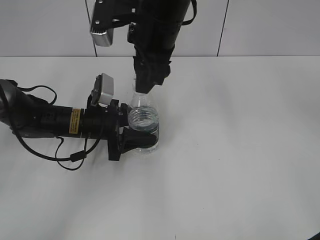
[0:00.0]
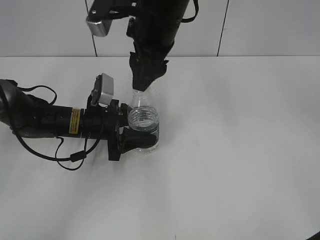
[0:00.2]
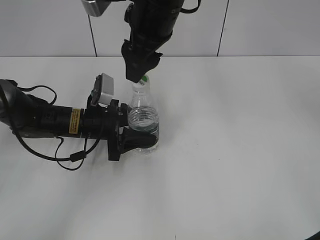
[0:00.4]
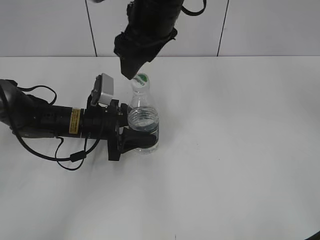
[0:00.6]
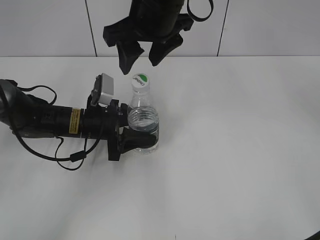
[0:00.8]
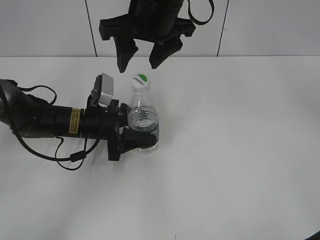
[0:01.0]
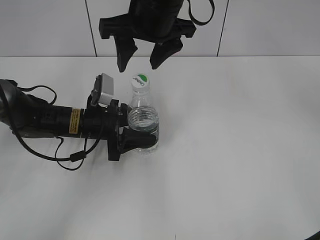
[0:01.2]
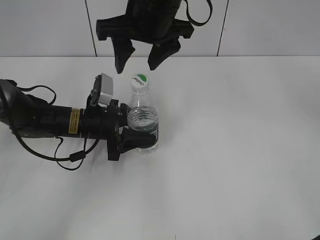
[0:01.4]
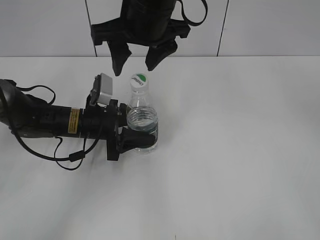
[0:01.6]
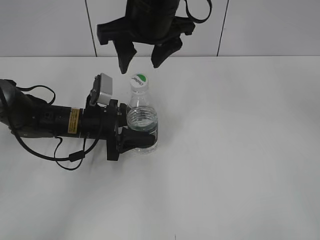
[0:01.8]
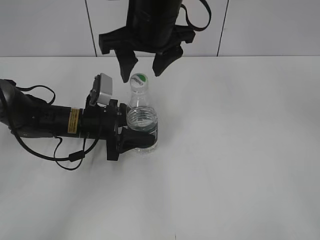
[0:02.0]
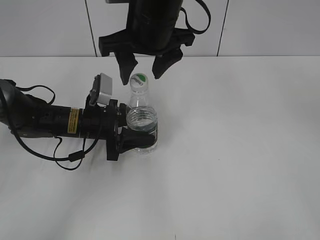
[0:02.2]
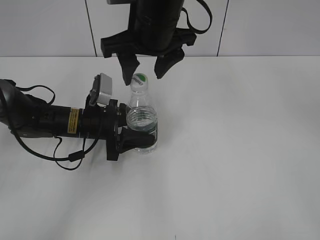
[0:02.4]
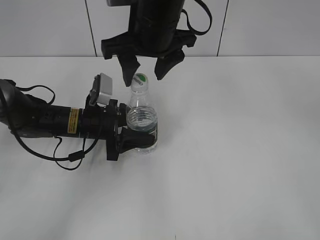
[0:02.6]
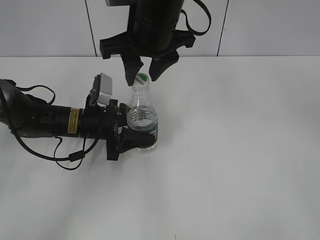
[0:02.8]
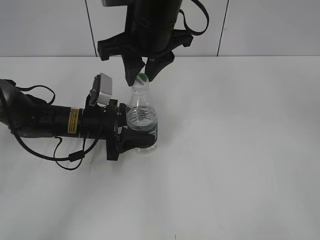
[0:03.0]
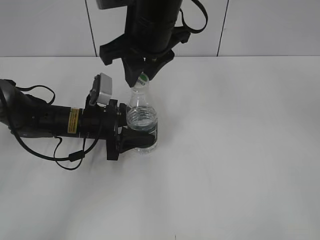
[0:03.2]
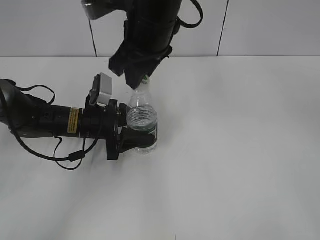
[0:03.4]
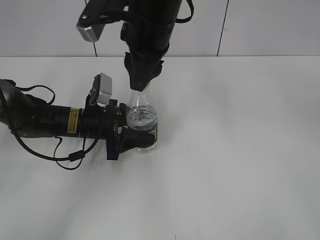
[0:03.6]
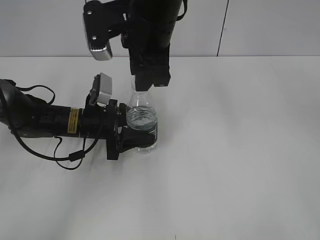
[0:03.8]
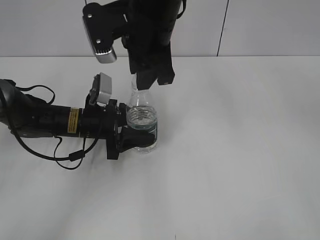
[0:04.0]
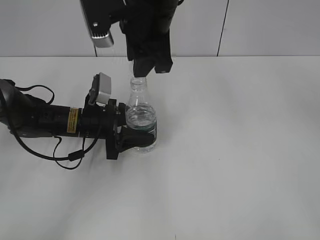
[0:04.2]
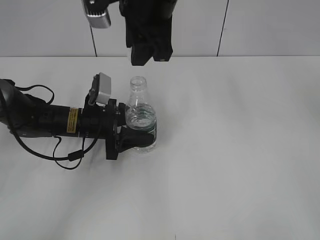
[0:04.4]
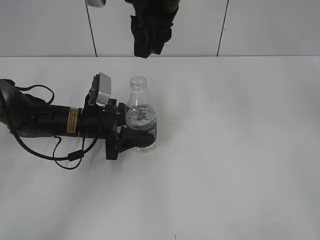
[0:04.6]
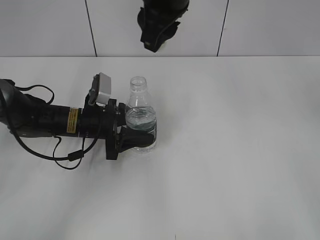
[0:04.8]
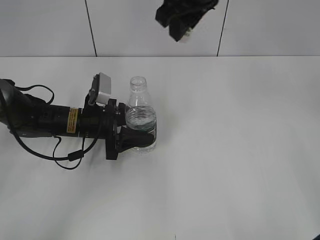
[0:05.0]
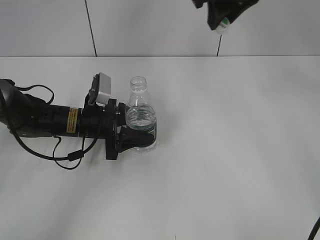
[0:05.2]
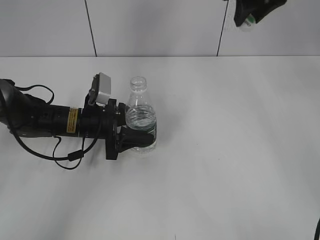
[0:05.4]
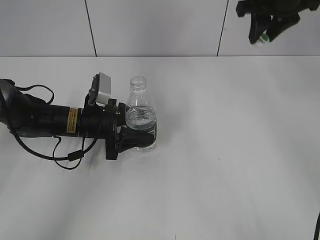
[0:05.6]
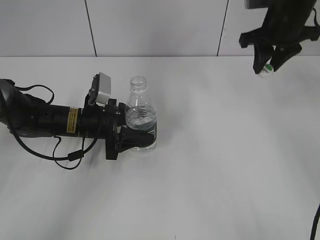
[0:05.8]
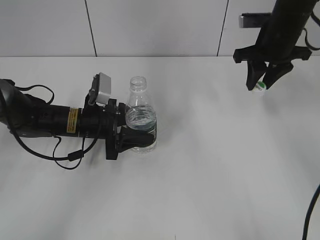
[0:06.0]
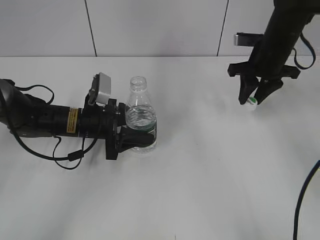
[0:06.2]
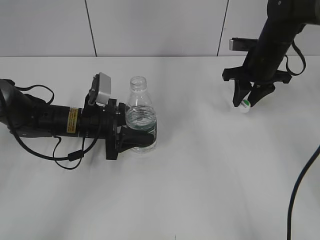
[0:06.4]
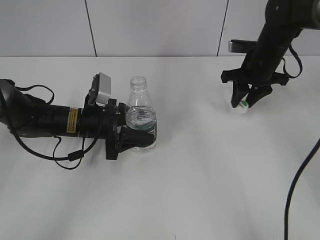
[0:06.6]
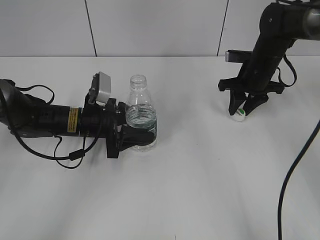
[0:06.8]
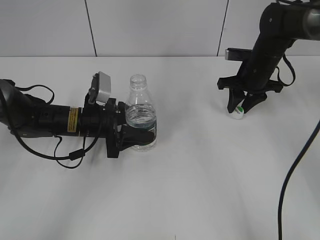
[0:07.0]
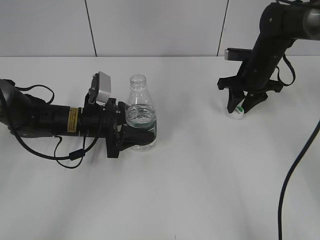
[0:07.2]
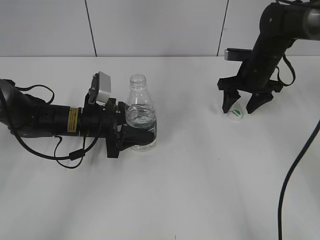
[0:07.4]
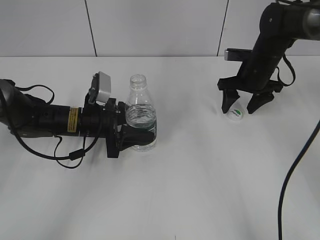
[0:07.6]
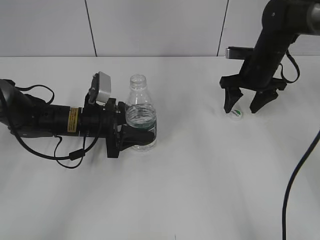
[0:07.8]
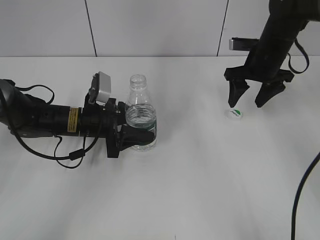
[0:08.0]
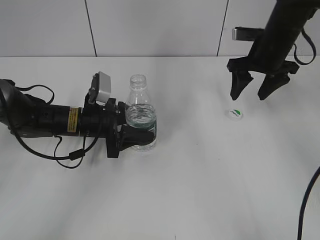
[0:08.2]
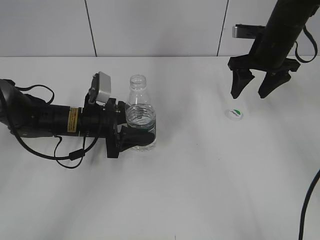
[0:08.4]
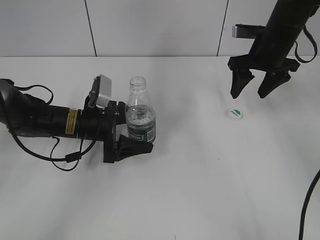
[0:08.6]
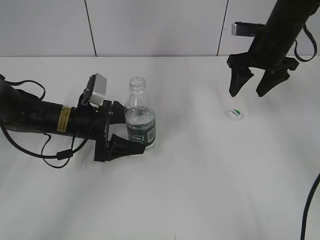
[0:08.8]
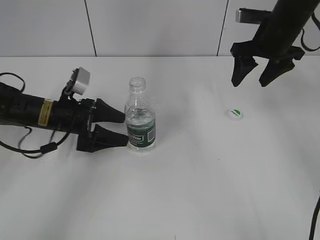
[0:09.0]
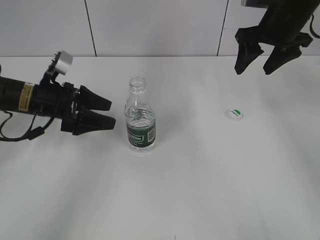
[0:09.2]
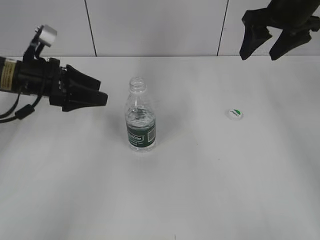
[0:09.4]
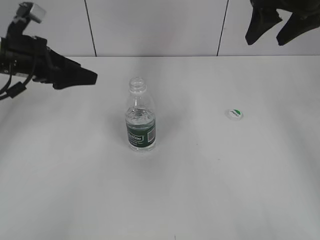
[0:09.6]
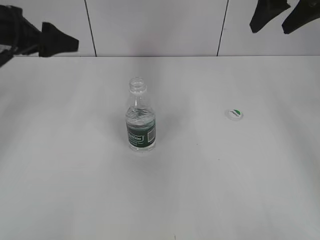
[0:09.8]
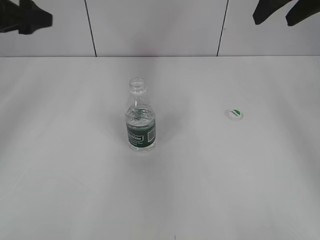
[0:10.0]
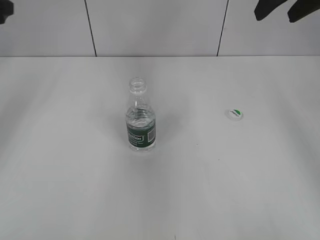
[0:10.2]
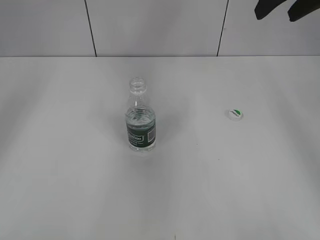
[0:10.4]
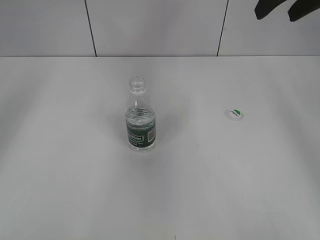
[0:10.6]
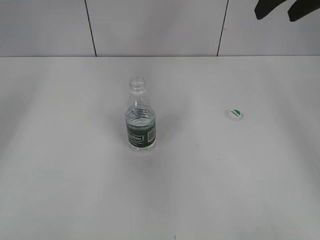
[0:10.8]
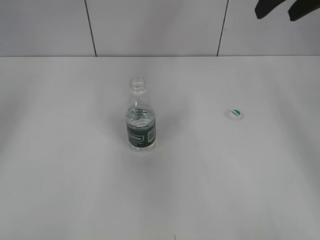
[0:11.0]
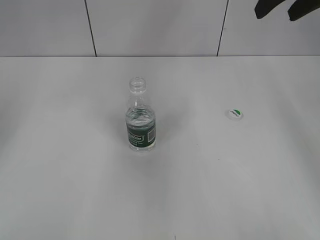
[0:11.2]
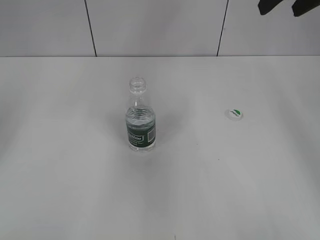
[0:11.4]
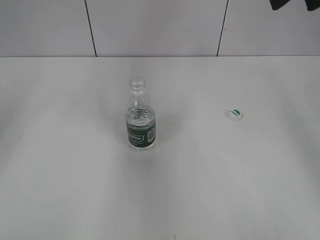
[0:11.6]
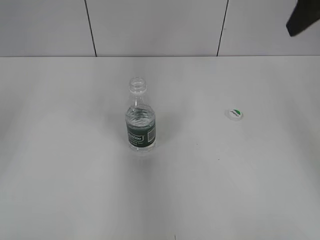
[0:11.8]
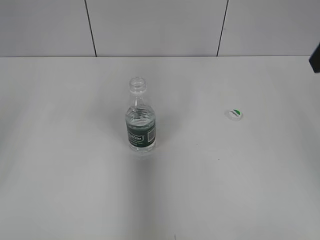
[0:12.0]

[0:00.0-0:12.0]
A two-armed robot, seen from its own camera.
Step, 0:00.0 to 0:04.2: Unscrew the bottle cap with the right gripper while holding the bottle with the left gripper.
Step, 0:04.4 to 0:08.0: Place the bottle cap on the table with the right gripper.
Step, 0:08.4 to 0:09.0: Place the bottle on the table with the left gripper.
0:00.0 to 0:01.6: The right gripper opens.
0:01.6 to 0:03.0: The right gripper closes its fingers.
0:04.4 to 0:06.0: The right gripper heads to the right, forward and downward, covering about 25 cm.
0:06.0 to 0:07.6: The right gripper travels downward by some 10 cm, and opens.
0:07.6 to 0:09.0: The right gripper shifts some 10 cm upward, while the left gripper opens up.
0:09.0 to 0:10.4: The left gripper shifts some 25 cm upward and to the left; the right gripper shifts approximately 15 cm upward and backward.
0:10.4 to 0:12.0: The right gripper shifts about 10 cm backward.

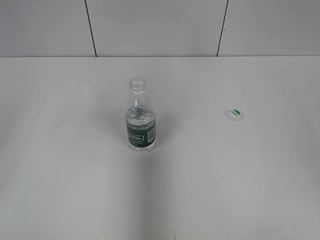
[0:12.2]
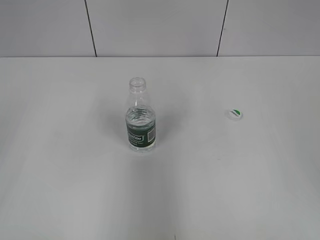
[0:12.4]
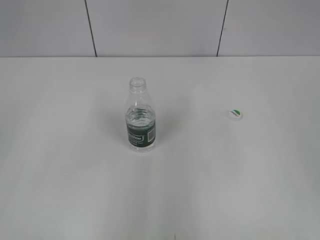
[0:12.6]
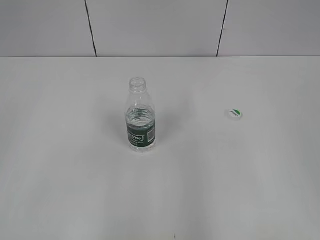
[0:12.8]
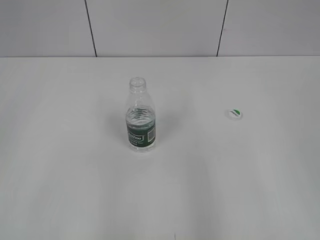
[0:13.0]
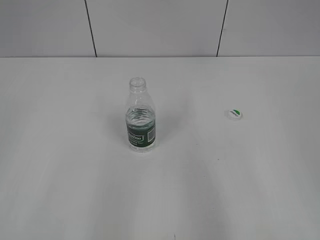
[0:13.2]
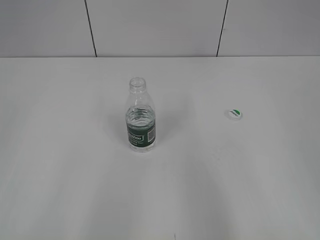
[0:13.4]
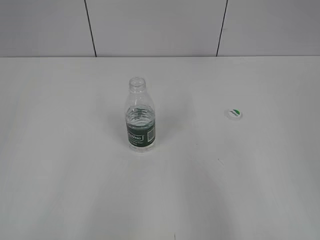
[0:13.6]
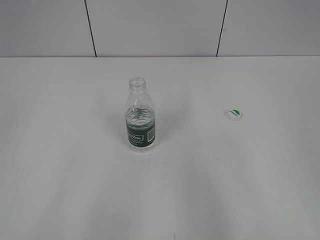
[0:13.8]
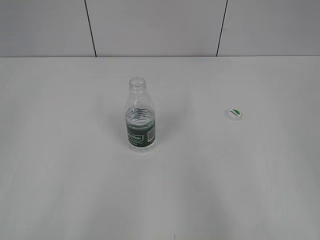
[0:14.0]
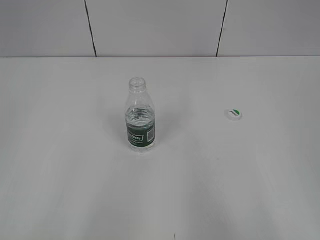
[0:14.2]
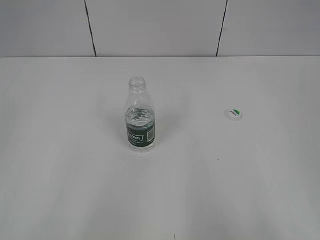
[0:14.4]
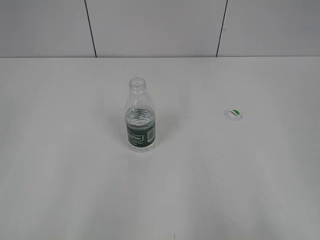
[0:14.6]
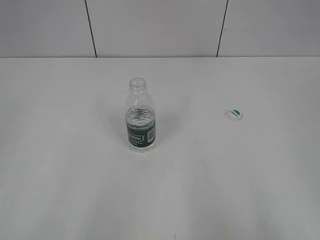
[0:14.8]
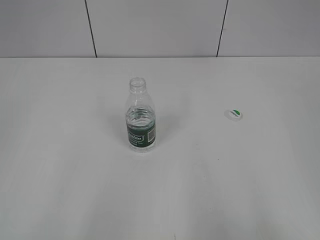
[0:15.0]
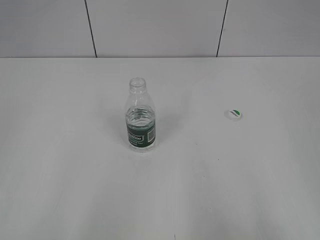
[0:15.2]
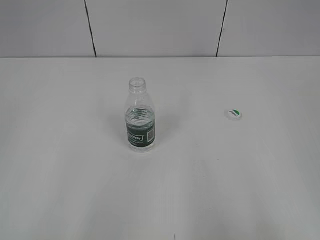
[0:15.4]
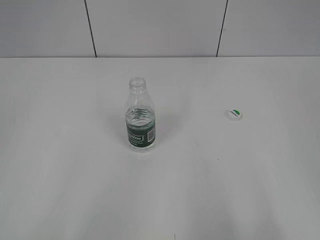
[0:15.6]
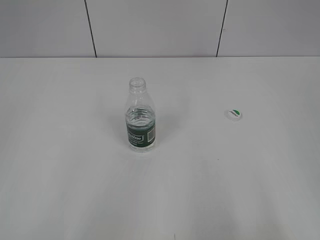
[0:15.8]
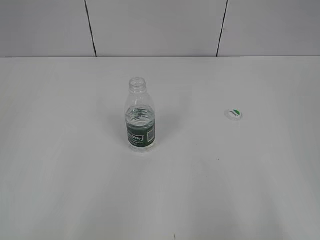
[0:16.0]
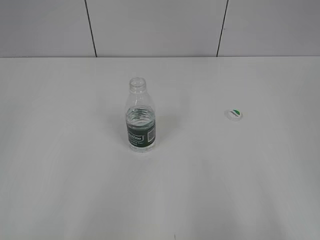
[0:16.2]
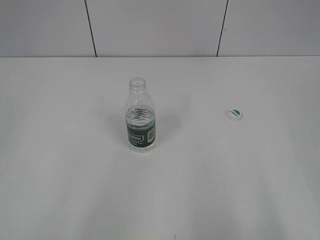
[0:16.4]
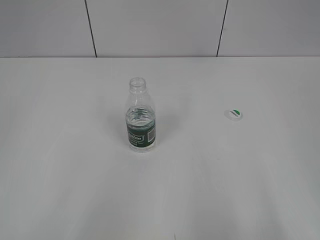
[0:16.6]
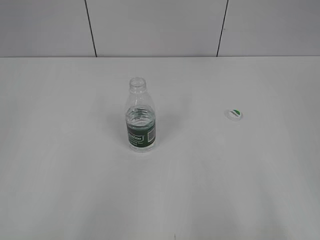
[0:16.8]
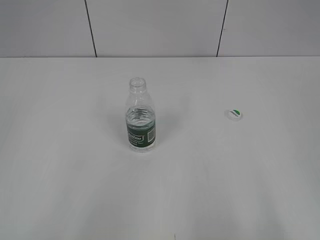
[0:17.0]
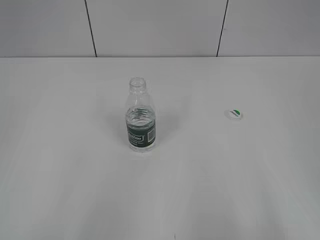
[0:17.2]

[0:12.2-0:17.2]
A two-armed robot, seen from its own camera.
0:12.2 to 0:13.8: The left gripper is displaced backward by about 20 cm. The right gripper is displaced backward and downward by approximately 15 cm.

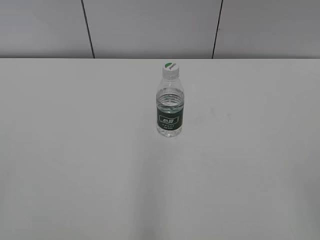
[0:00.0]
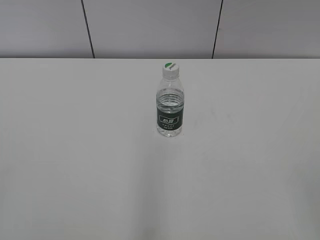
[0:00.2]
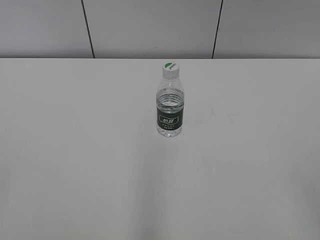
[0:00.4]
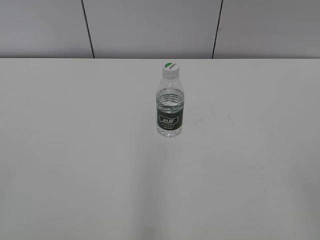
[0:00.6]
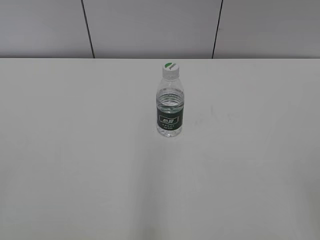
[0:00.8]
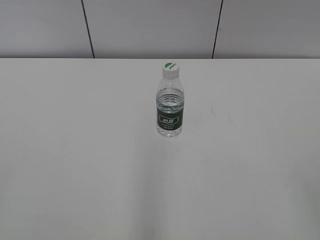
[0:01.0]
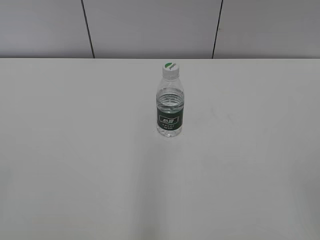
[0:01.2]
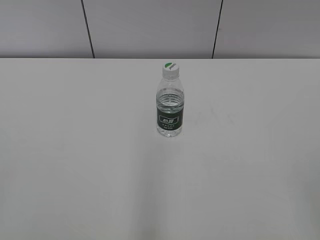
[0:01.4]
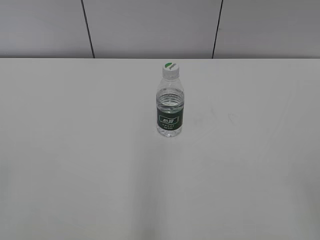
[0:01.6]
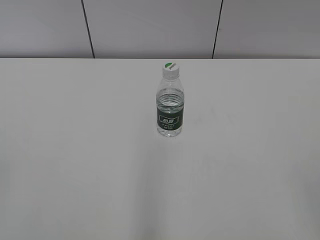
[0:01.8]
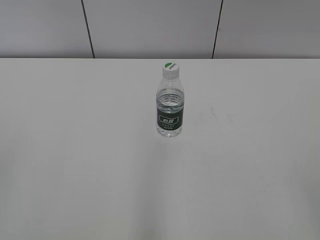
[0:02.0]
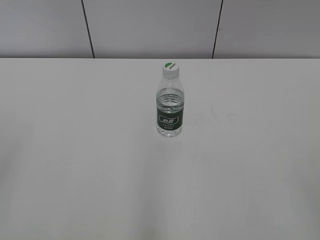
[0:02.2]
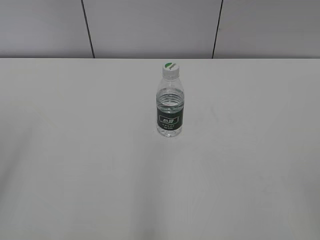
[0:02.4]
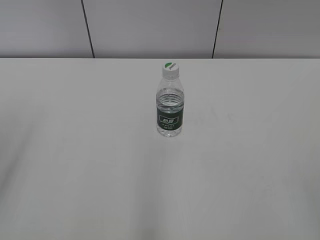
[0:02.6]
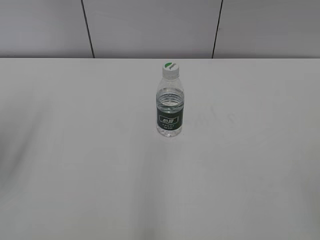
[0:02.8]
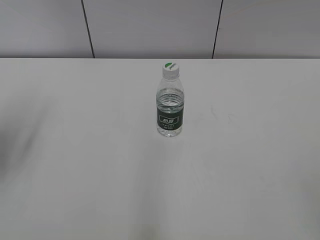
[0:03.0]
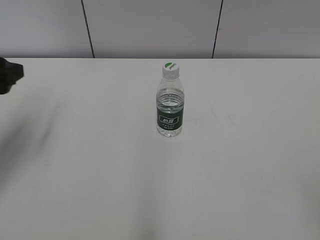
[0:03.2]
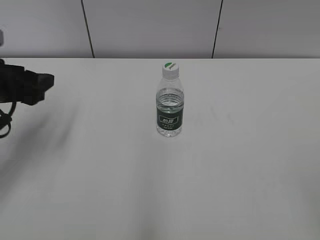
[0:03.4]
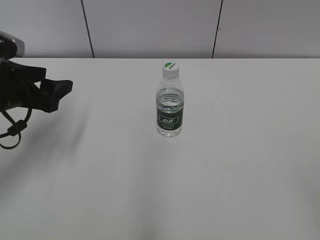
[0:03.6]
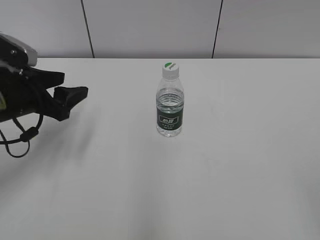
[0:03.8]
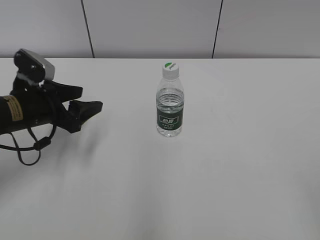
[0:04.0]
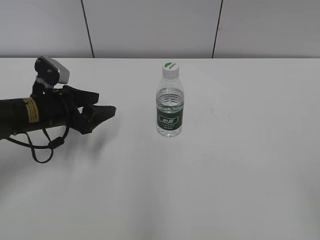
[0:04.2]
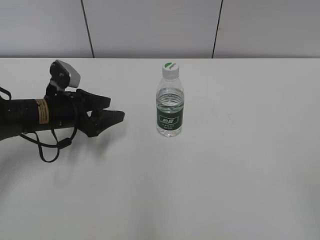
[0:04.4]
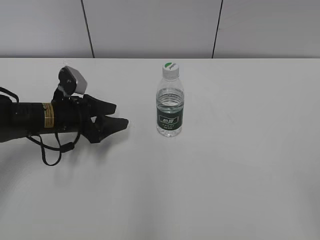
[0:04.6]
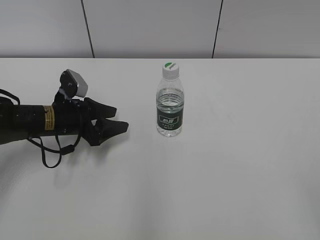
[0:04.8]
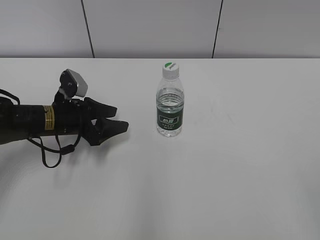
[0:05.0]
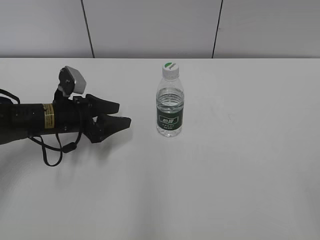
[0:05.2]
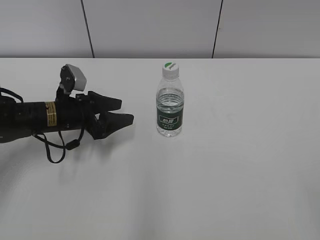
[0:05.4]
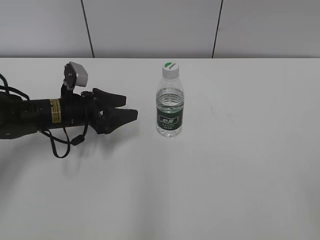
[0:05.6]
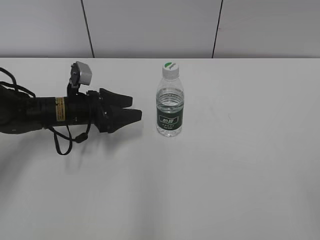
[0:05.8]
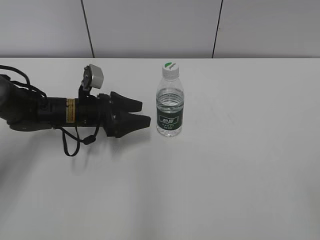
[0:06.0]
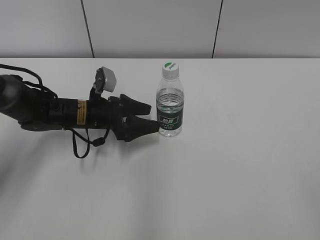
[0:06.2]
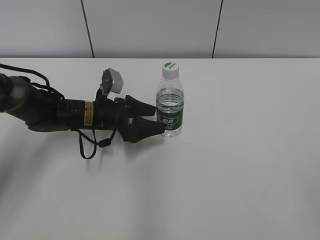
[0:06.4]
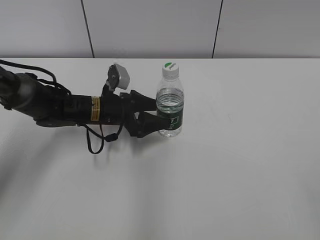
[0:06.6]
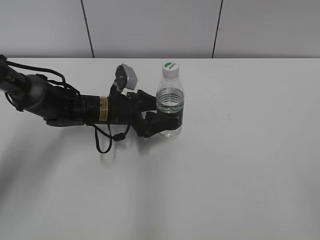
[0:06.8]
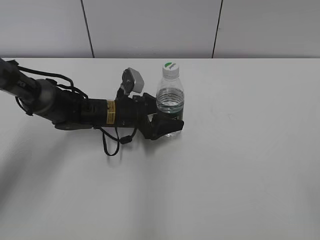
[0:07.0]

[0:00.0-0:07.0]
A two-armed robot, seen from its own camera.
0:02.8 to 0:04.2: The left gripper is displaced downward, forward and to the right by approximately 25 cm.
0:04.2 to 0:05.6: The left gripper shifts by roughly 5 cm.
0:05.6 to 0:07.0: The left gripper moves to the right, about 10 cm.
